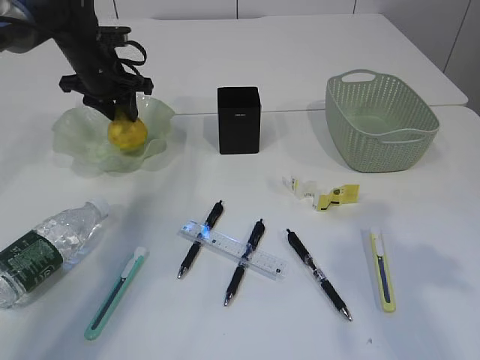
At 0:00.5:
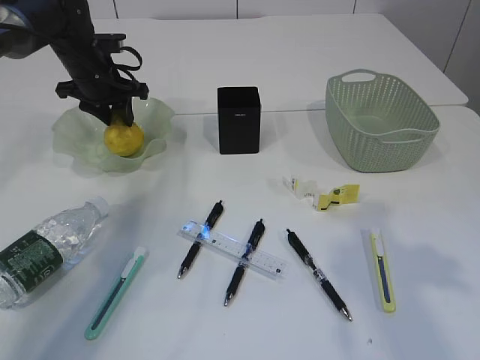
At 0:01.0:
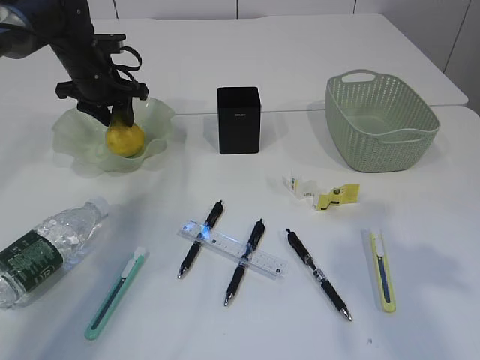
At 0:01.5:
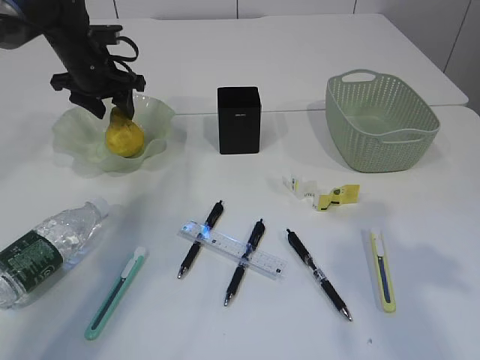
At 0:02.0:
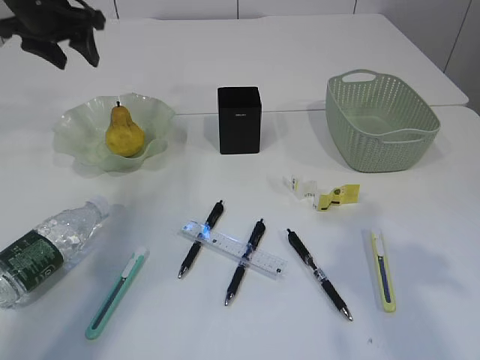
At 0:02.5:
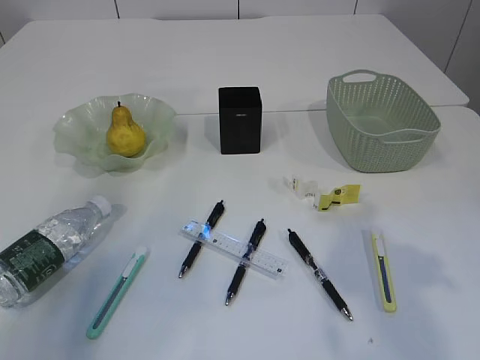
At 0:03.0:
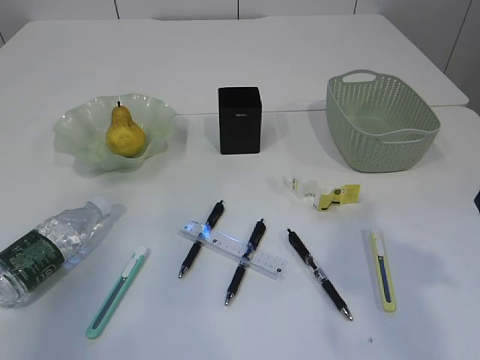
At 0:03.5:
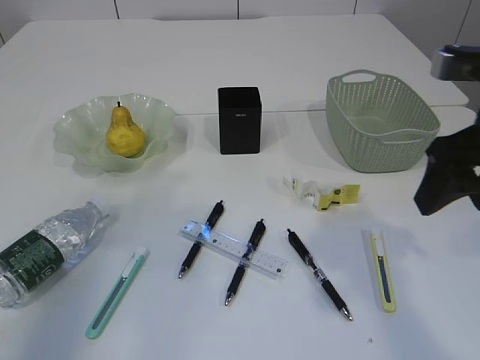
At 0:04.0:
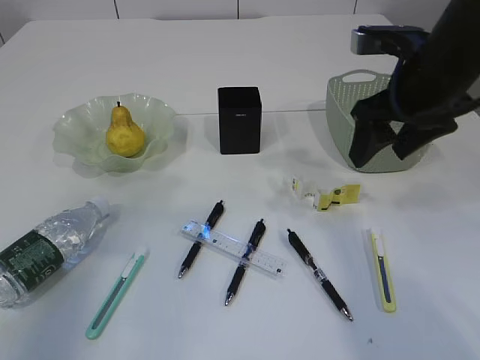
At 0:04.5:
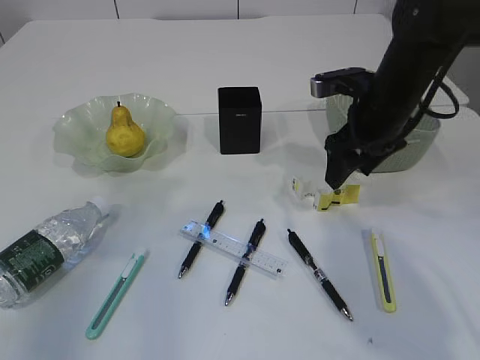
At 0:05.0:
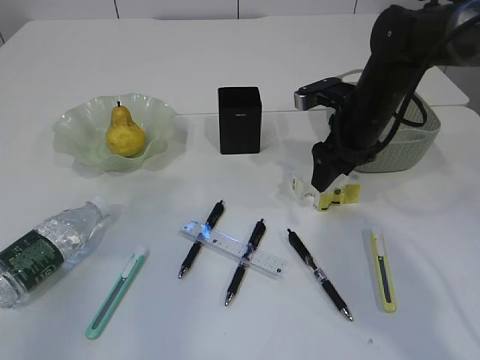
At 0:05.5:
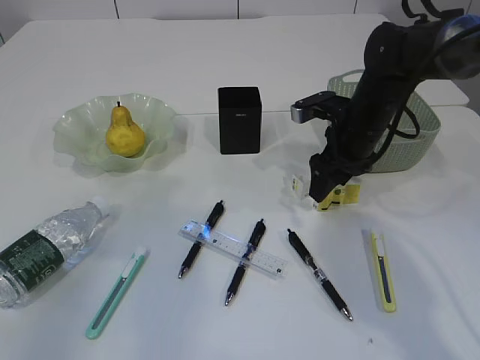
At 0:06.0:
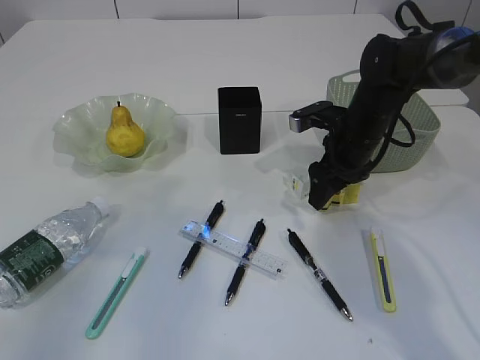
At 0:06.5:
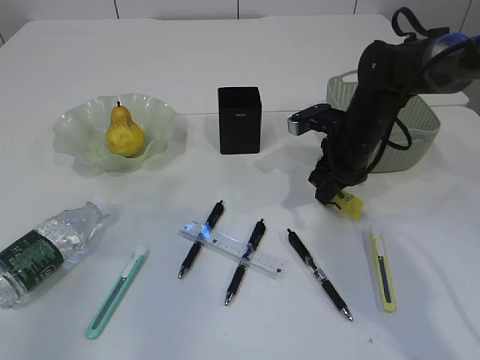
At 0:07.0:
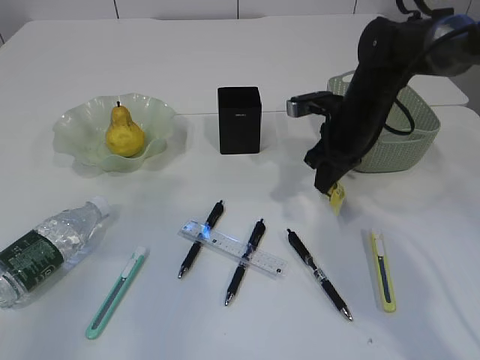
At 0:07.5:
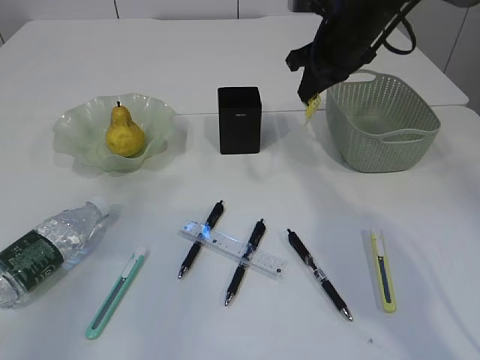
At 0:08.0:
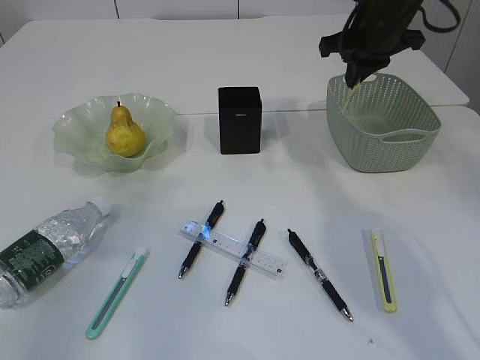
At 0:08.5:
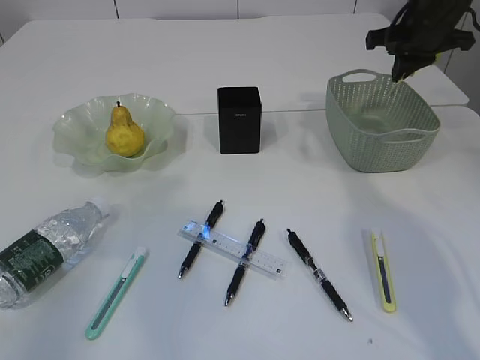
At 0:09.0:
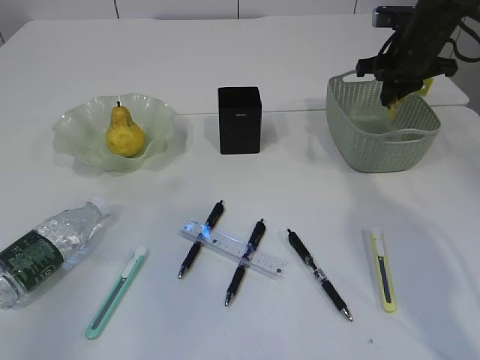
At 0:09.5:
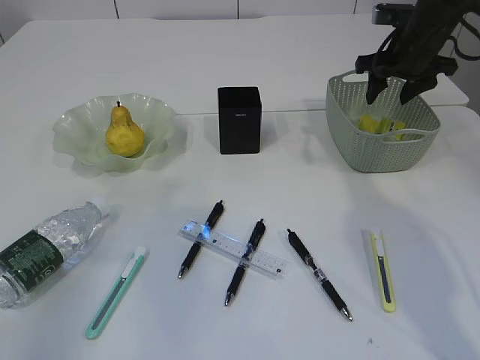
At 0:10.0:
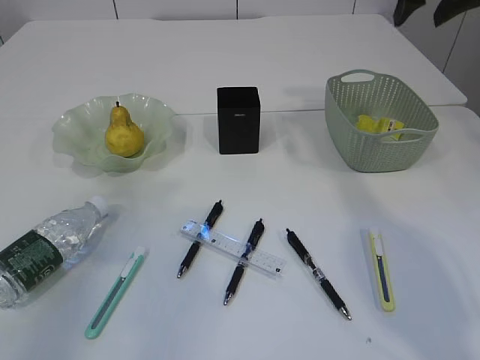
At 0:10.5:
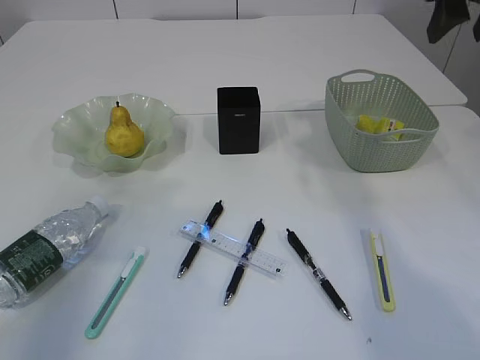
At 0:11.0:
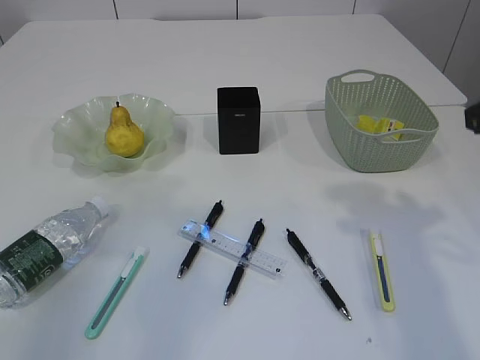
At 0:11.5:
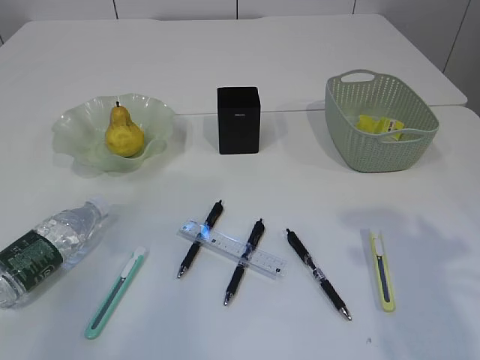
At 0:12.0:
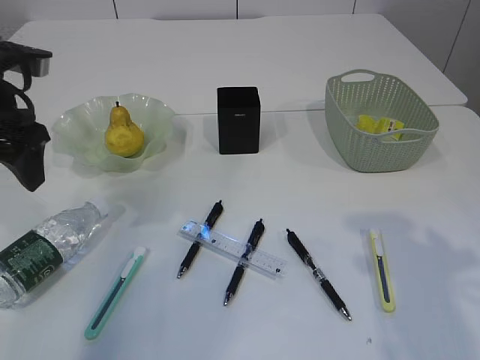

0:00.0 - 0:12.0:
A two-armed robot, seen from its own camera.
Step, 0:02.0 - 0:07.0: Pick up the plastic.
Step, 0:07.5 - 0:09.5: Place the plastic in the basket.
0:00.0 - 0:02.0: The left gripper travels upward by about 10 cm.
0:02.0 - 0:04.0: The right gripper moves forward, about 15 cm, while the left gripper shifts roughly 30 cm backward.
0:04.0 - 0:06.0: The right gripper travels downward and forward by roughly 15 cm.
0:06.0 - 0:08.0: The right gripper shifts approximately 15 cm upward, and closes.
0:08.0 - 0:10.0: The right gripper heads upward and to the right, covering roughly 10 cm, and opens up.
0:10.0 - 0:12.0: The right gripper shifts about 25 cm backward, while the left gripper goes roughly 15 cm forward, downward and to the right, and opens its fingers.

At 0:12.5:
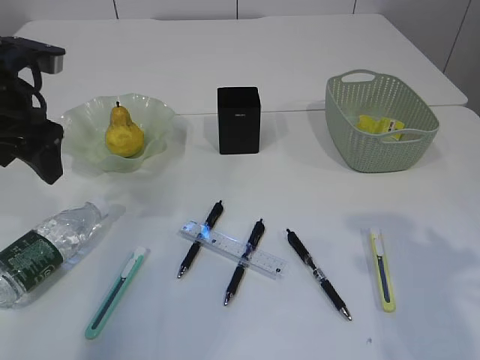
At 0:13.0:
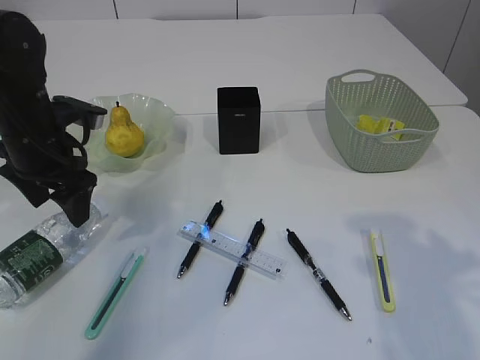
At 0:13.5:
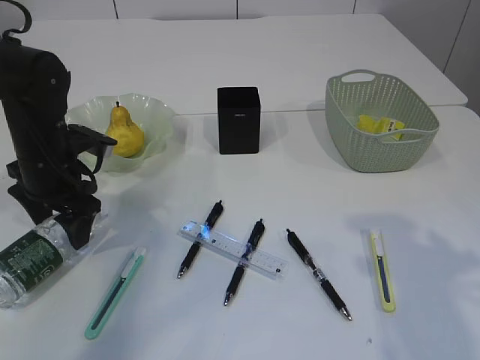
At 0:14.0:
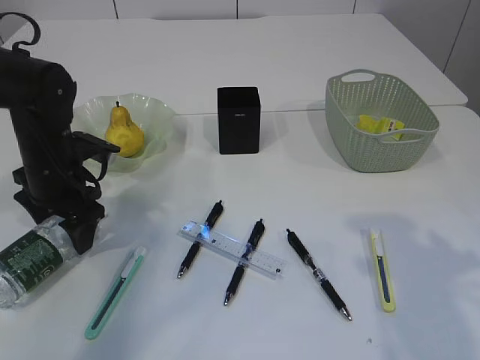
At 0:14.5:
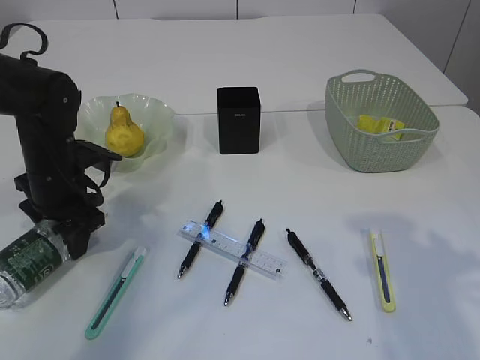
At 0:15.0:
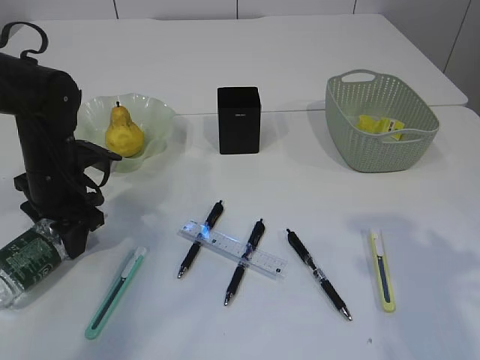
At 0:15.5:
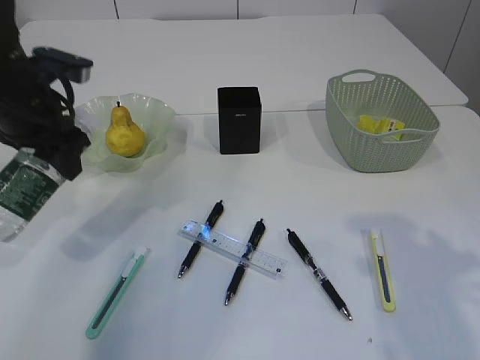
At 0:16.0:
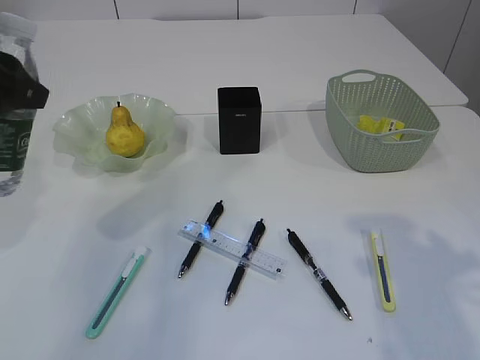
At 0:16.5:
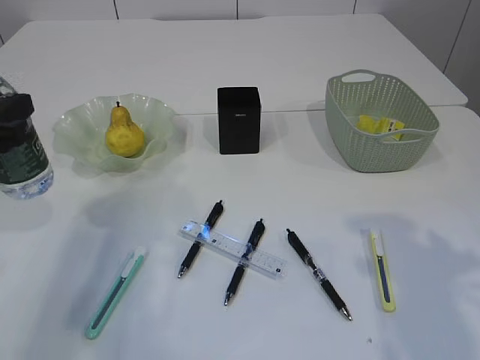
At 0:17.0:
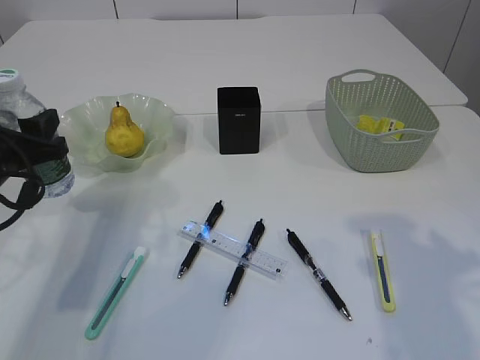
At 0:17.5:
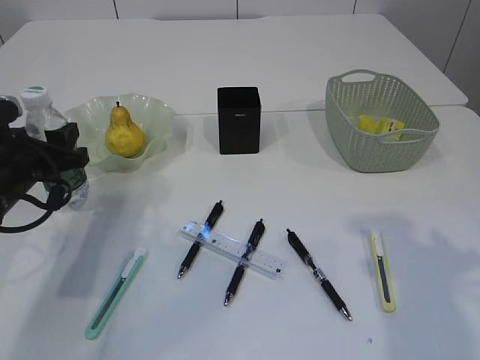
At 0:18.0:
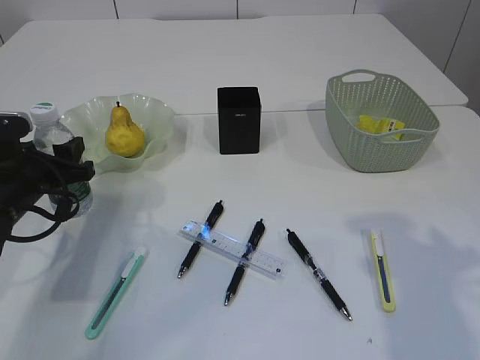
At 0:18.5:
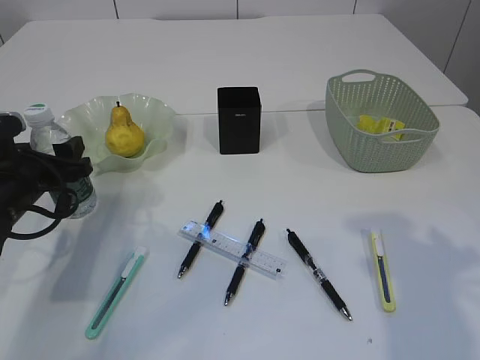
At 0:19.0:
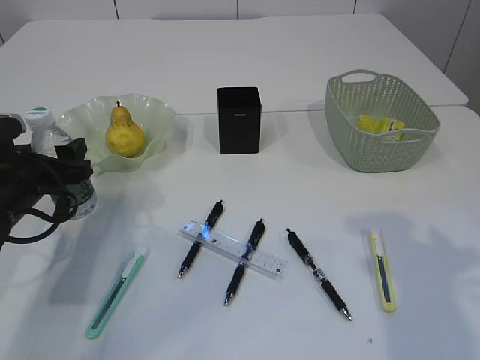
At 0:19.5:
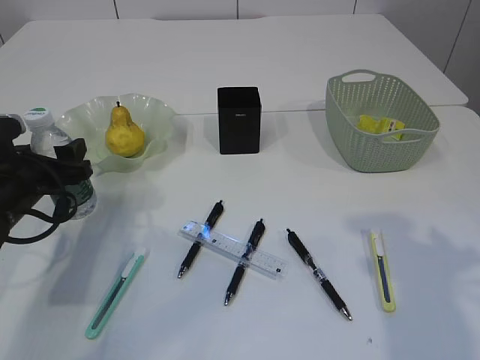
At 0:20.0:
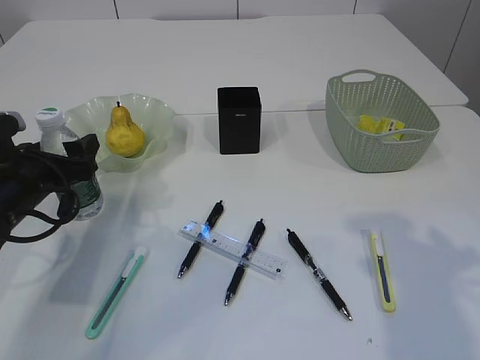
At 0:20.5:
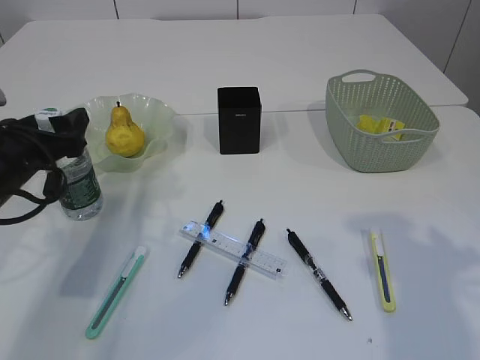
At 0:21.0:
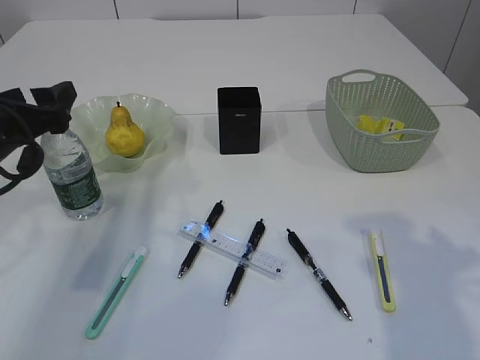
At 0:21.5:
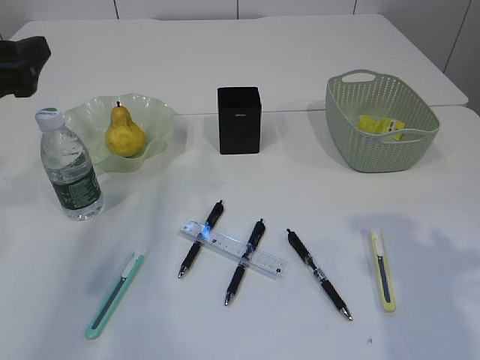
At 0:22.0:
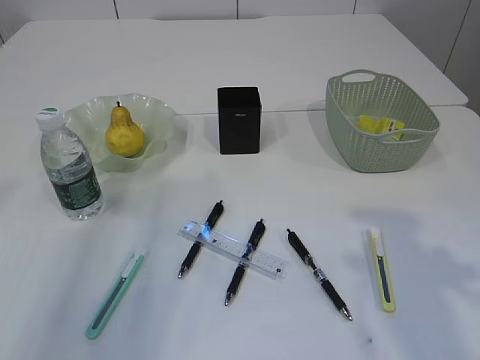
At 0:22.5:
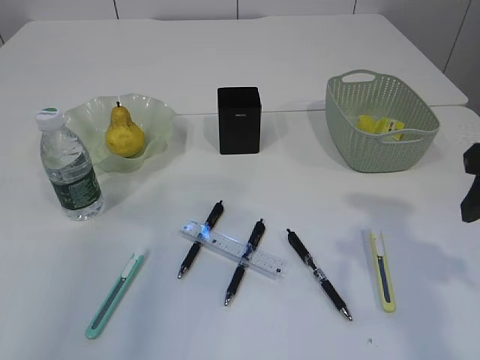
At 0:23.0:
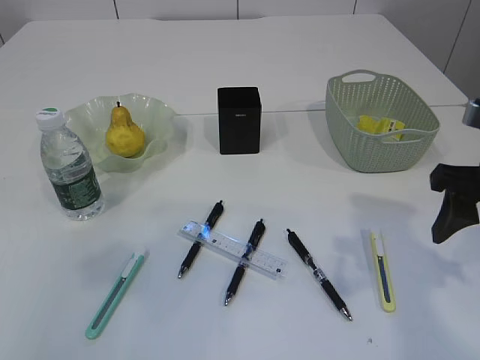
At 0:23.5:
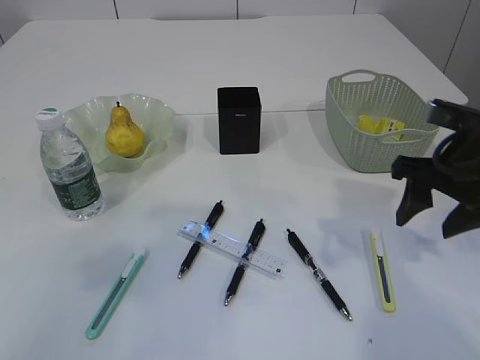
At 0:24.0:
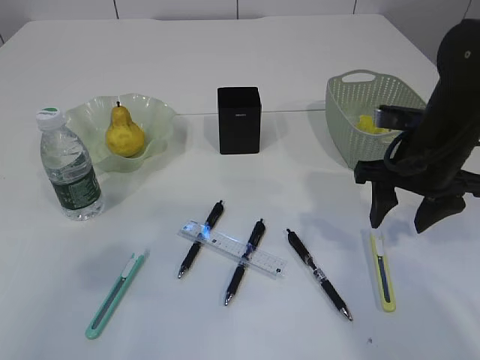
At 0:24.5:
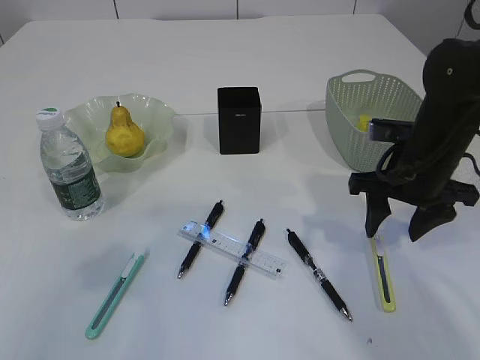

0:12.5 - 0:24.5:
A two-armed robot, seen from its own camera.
Step, 0:12.5 - 0:15.5: Pick up the bottle with the left arm.
Step, 0:16.0 - 0:21.0: Place the bottle.
0:12.5 - 0:14.5: The left gripper is displaced downward by approximately 15 cm.
0:14.5 - 0:16.5: The left gripper is displaced backward and upward by some 15 cm.
0:16.5 - 0:18.5: The left gripper heads downward and forward, covering some 15 cm.
0:18.5 - 0:20.5: The grippers stay close to where they were, moving slightly.
0:20.5 - 0:22.5: The left gripper travels upward and backward by roughly 25 cm.
0:22.5 - 0:24.5: The right gripper travels forward, downward and to the left by about 15 cm.

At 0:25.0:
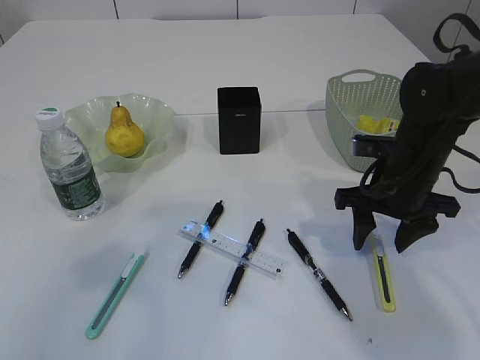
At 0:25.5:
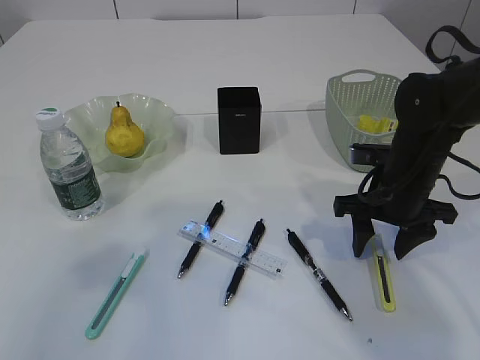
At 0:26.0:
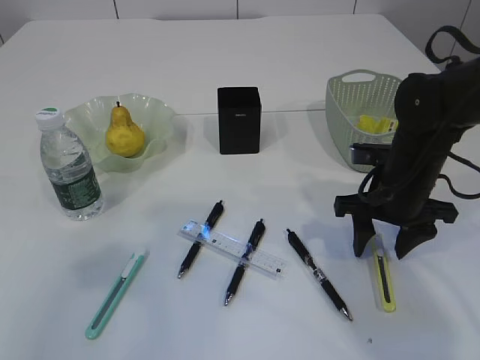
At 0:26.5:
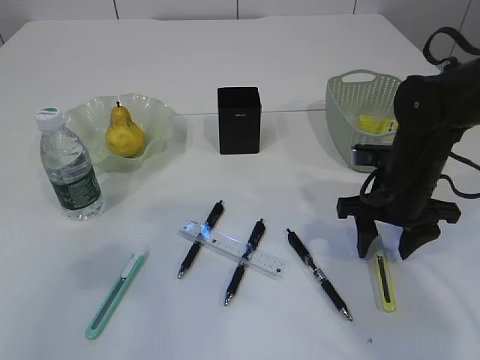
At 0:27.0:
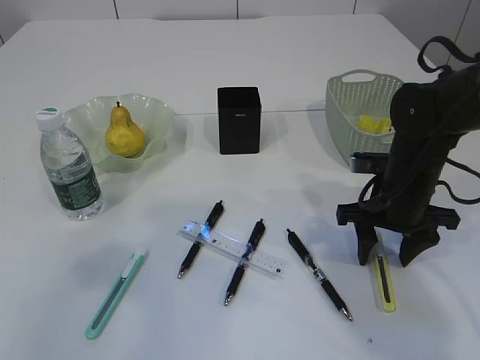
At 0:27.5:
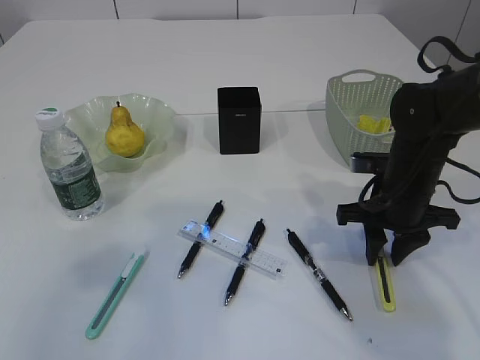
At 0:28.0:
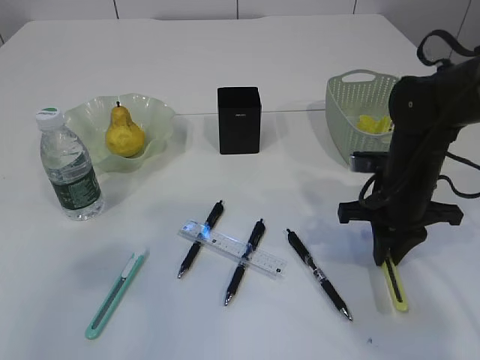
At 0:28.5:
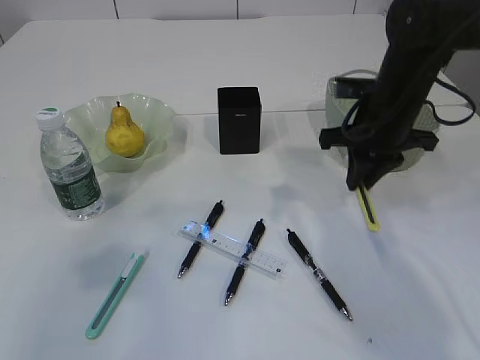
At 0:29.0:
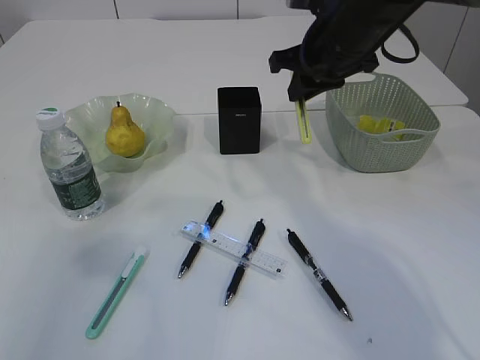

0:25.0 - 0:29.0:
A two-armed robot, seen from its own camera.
Step, 0:25.0 - 0:28.0: pick up the yellow knife.
0:25.0 - 0:27.0: The grippers stay close to where they were, moving slightly.
0:27.0 - 0:29.0: The right gripper shifts roughly 20 cm upward, forward and to the left, and closes.
